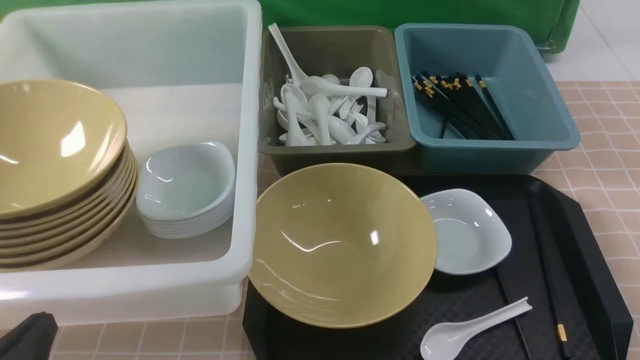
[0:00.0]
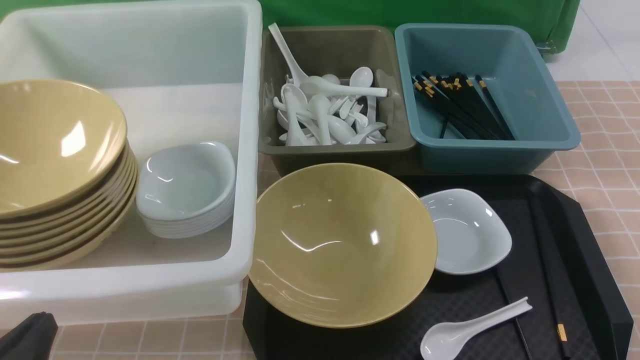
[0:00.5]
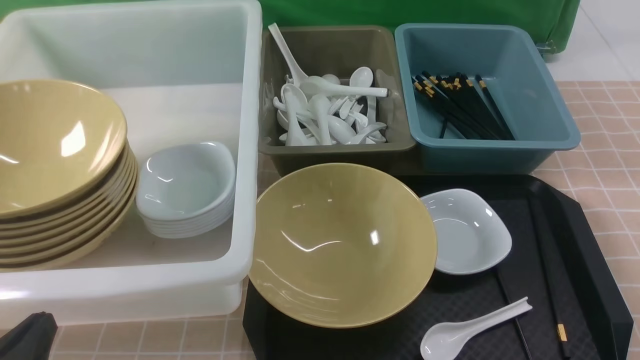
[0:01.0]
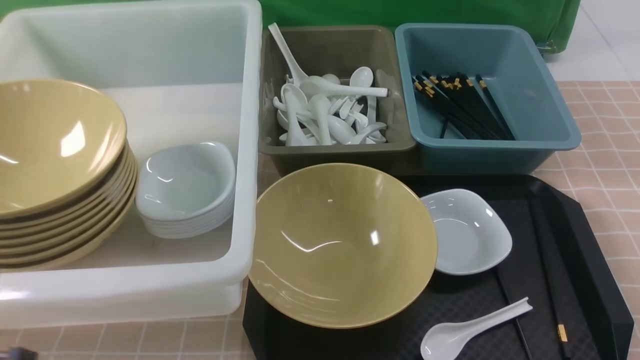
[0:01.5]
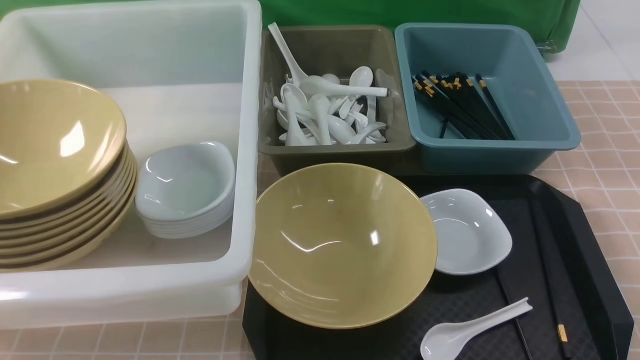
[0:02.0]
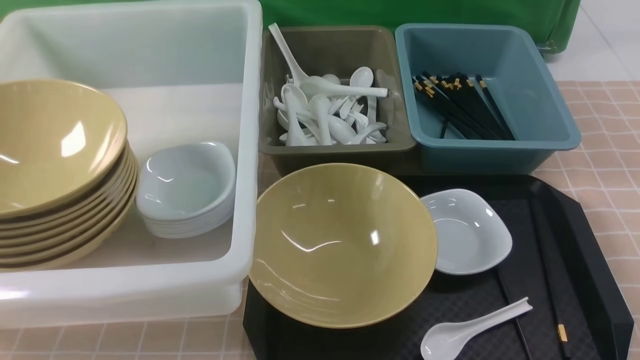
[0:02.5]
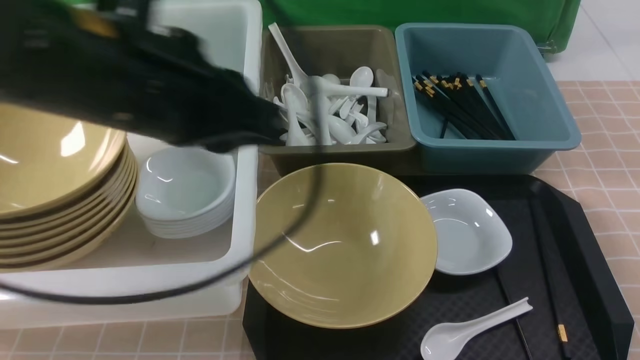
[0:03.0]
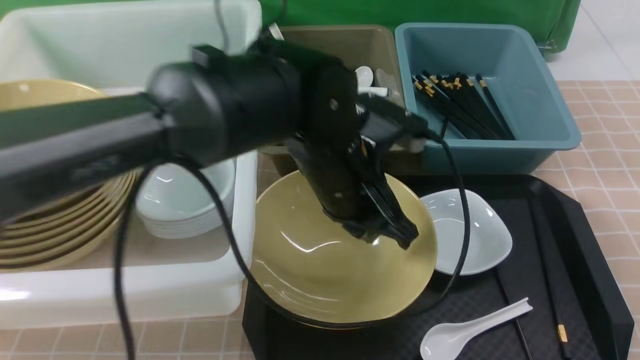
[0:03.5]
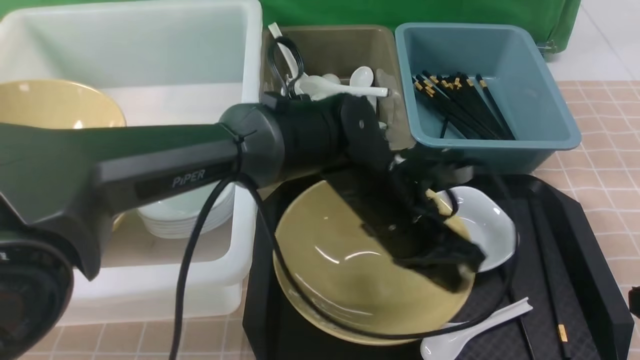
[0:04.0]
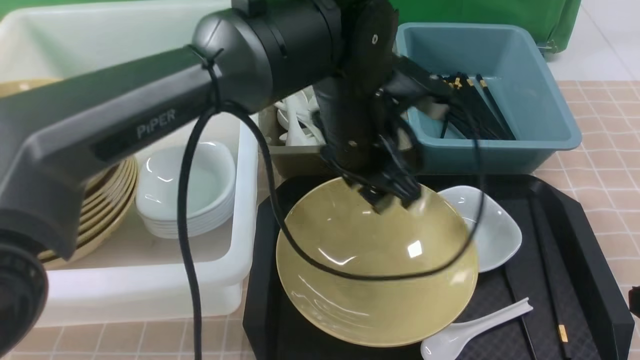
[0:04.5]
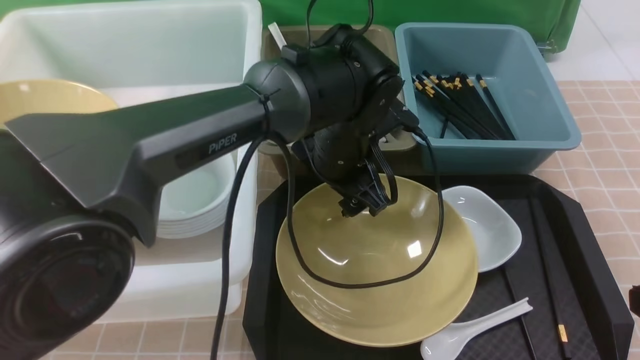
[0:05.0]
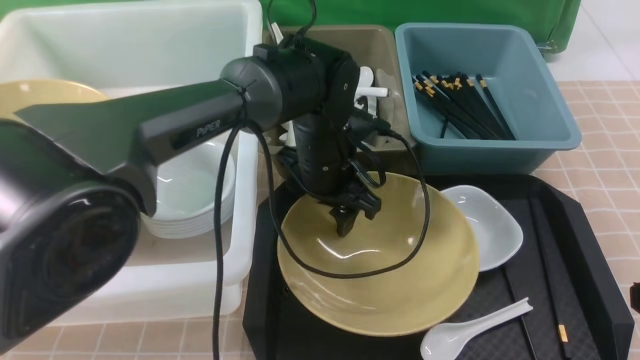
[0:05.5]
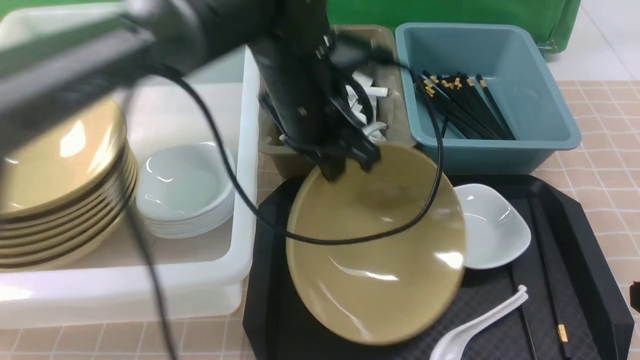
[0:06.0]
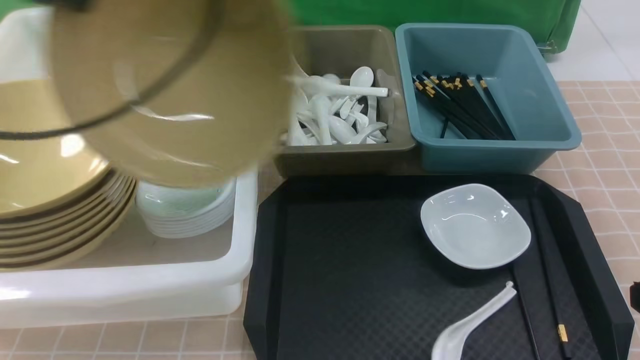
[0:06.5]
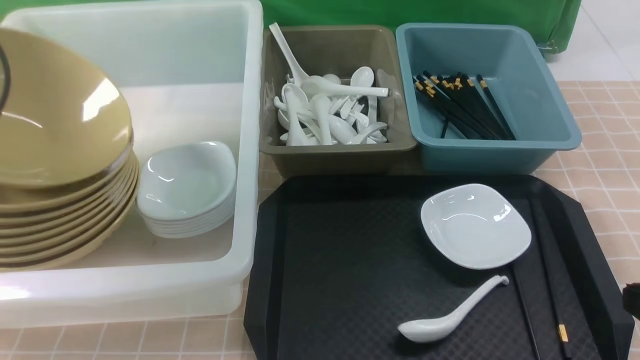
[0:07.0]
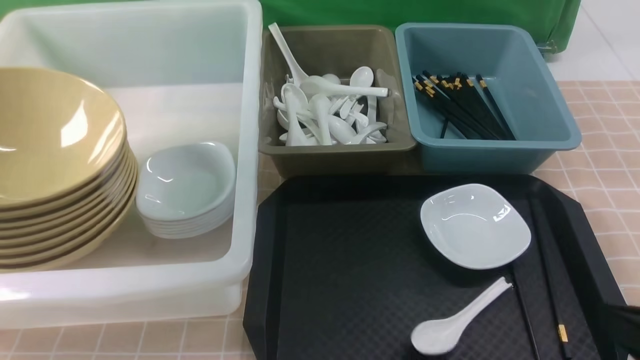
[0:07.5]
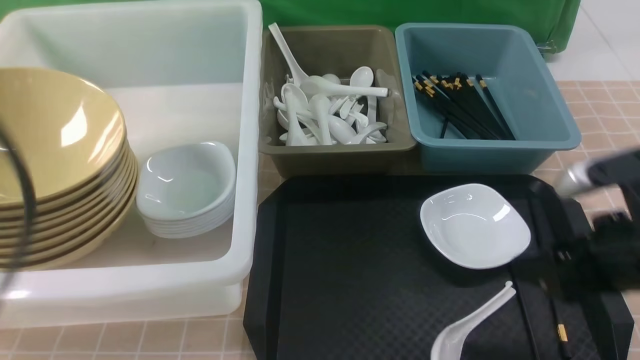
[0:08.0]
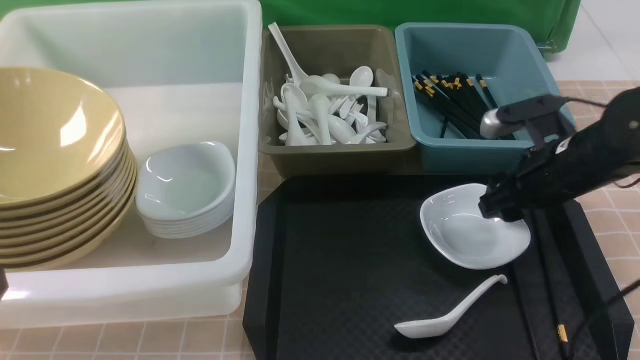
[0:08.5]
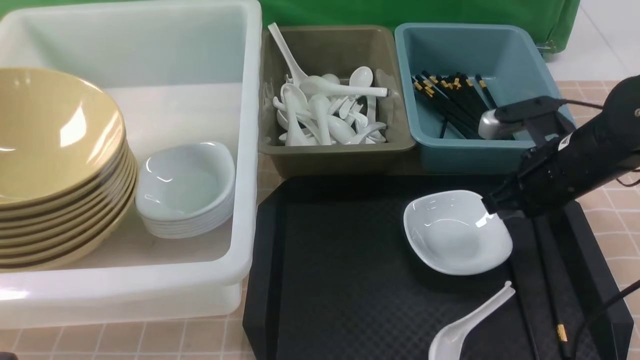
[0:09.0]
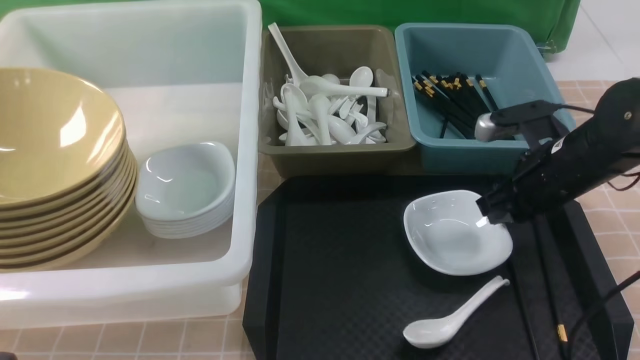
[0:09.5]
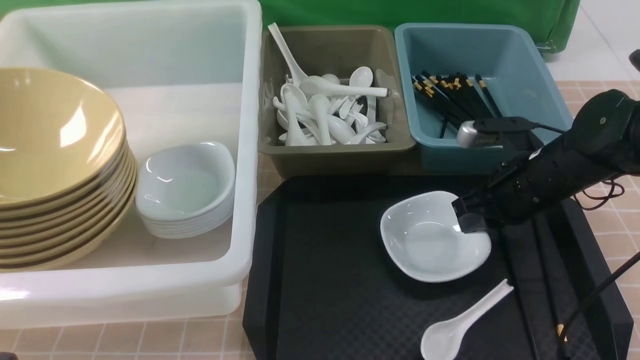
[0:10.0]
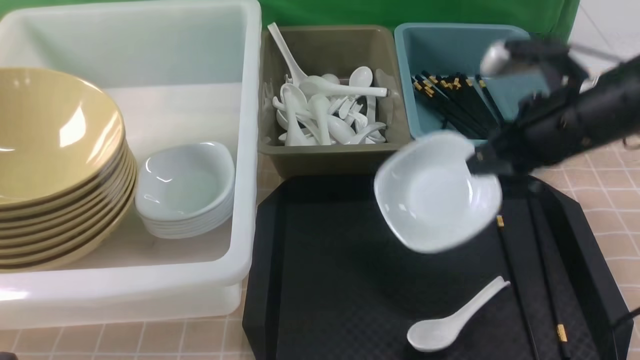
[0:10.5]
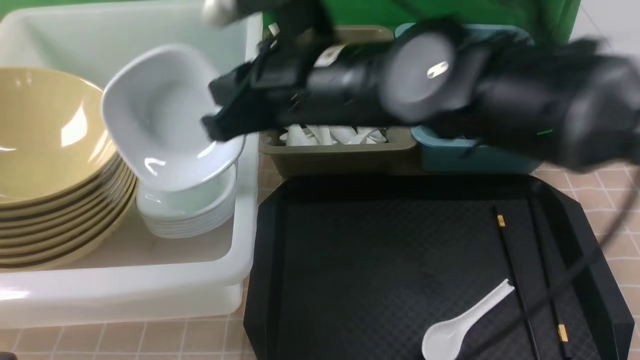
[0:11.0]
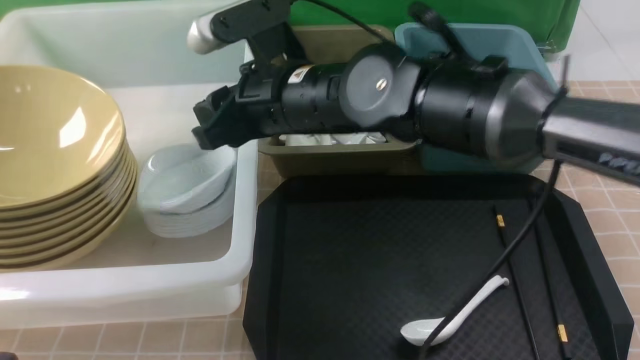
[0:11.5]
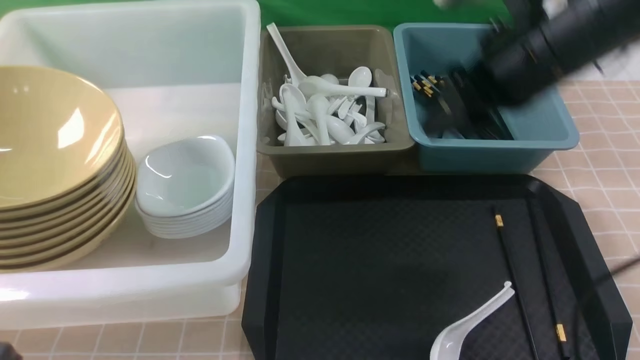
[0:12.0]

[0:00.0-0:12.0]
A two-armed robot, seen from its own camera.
Task of the whole recording: on brown table put chopsticks spoon bowls plates into blue grey white boxes.
Step, 0:00.0 to 0:05.5: use the left arm to grab the yellow noodle bowl on the left.
Step, 0:06.0 to 0:07.0: use the left arm to put the noodle bowl into the large storage box on the left.
Step, 0:08.0 to 0:10.0: use the right arm to grab the plate.
Step, 0:10.5 to 0:11.5: use the right arm to put the plate into the large storage box on the left.
0:00.0 to 0:02.0: The left gripper is displaced upward by approximately 15 cm.
0:02.0 to 0:04.0: The left gripper goes about 40 cm to the right and forward, while the right gripper heads forward, covering roughly 5 cm, and closes up.
0:04.0 to 0:06.0: The left gripper goes up and down, some 15 cm each way, reversing 2 times, and opens, then closes once more.
0:06.0 to 0:08.0: The right gripper is displaced forward by approximately 10 cm, and opens up. The left gripper goes approximately 30 cm backward and to the left, and opens, then closes again.
0:08.0 to 0:10.0: The left gripper is displaced downward and backward by about 15 cm. Meanwhile the right gripper travels forward and downward by about 15 cm, and closes its fingers.
0:10.0 to 0:12.0: The right gripper travels upward by about 15 cm, goes to the left and returns, some 20 cm each way, and opens its fingers.

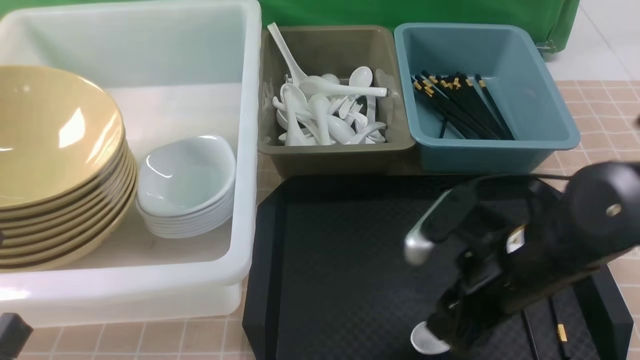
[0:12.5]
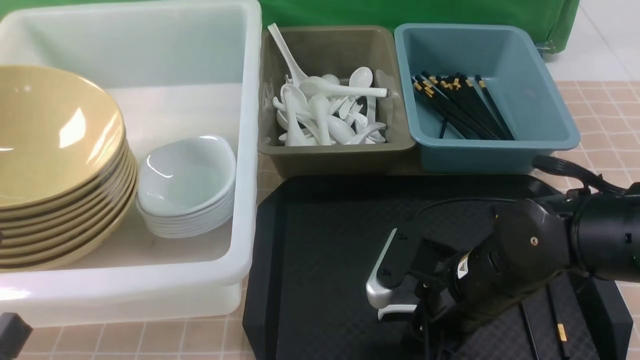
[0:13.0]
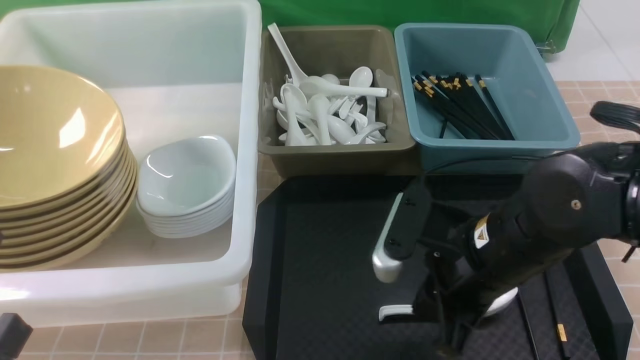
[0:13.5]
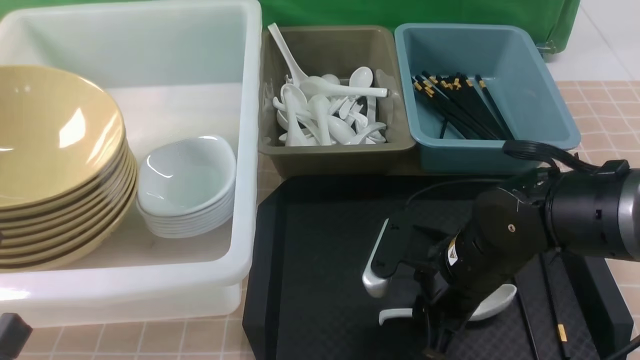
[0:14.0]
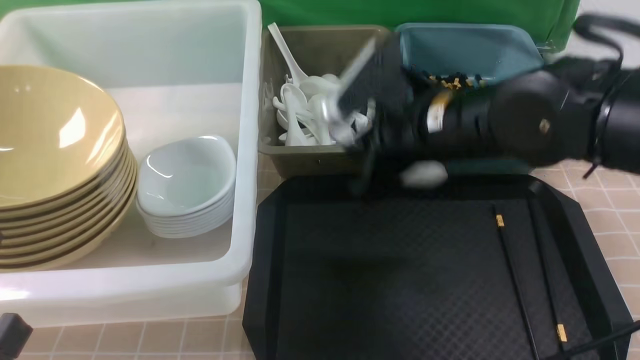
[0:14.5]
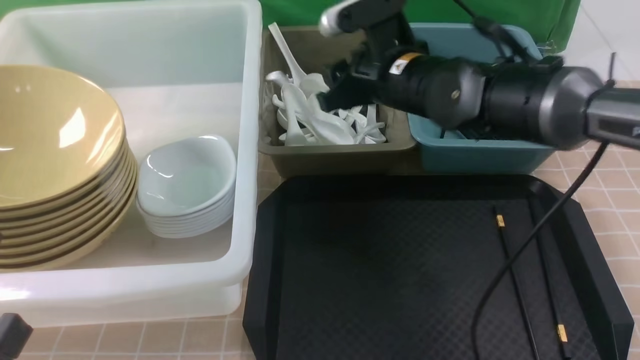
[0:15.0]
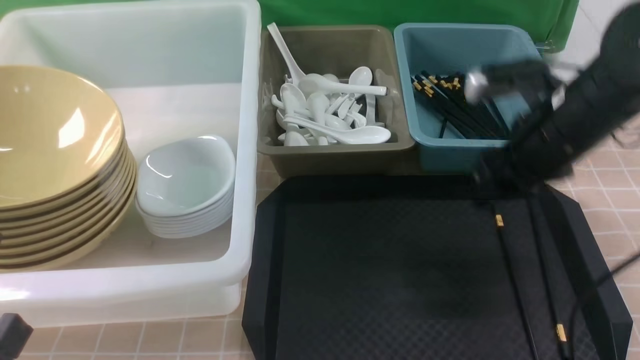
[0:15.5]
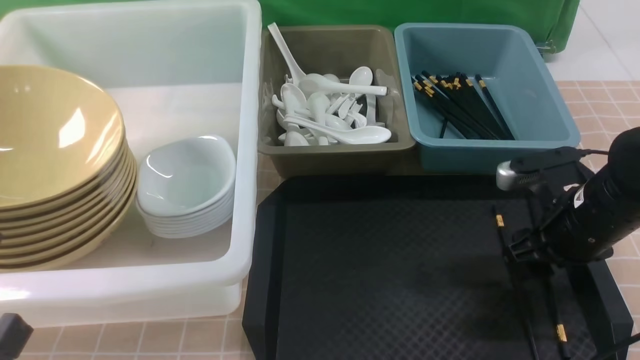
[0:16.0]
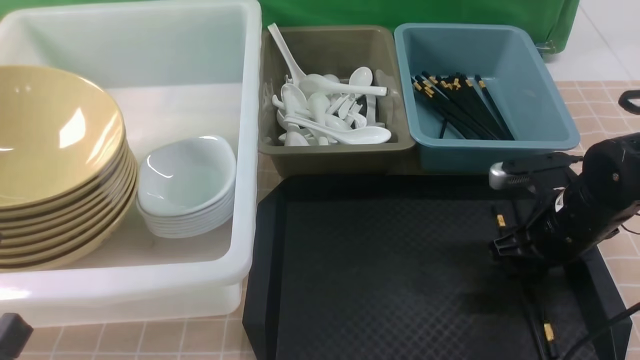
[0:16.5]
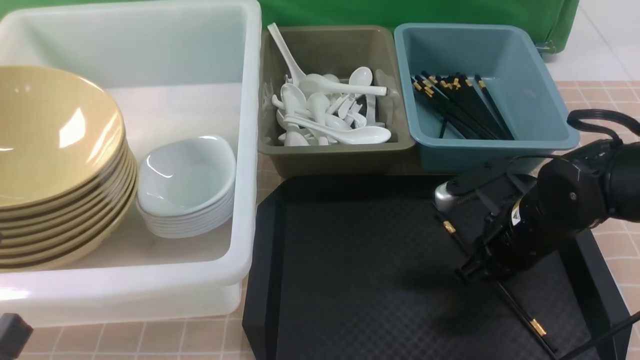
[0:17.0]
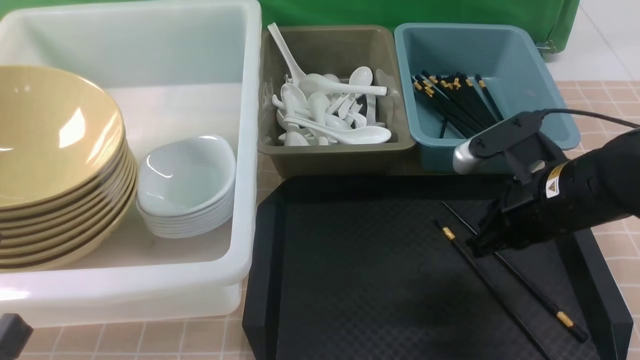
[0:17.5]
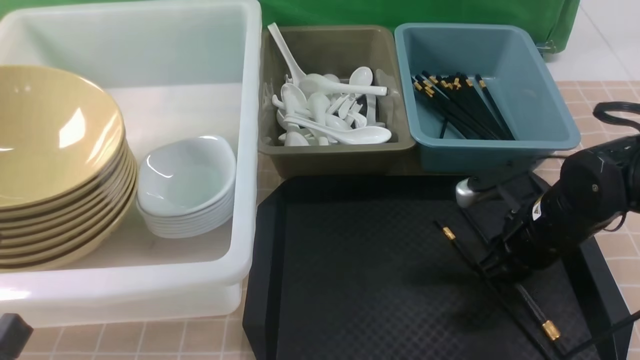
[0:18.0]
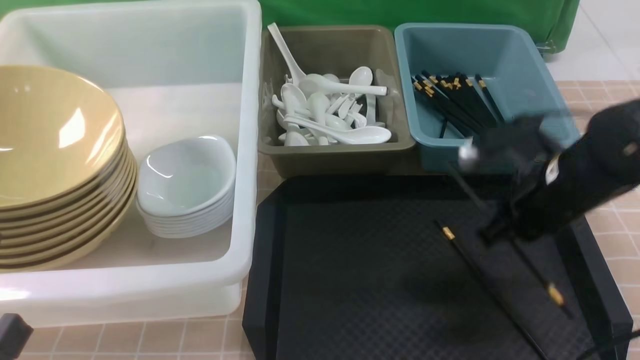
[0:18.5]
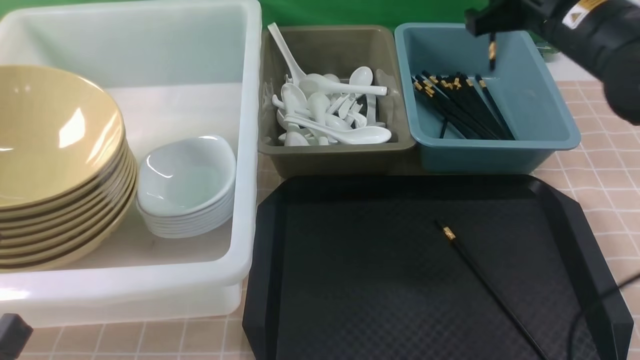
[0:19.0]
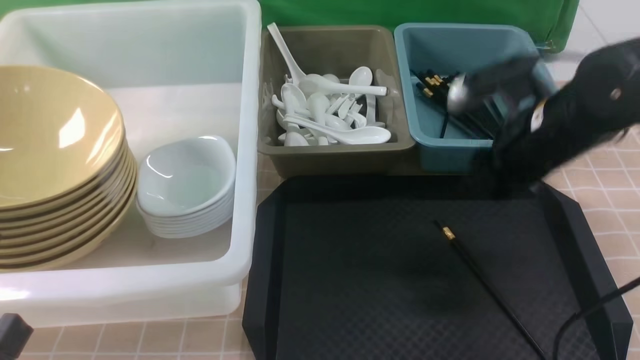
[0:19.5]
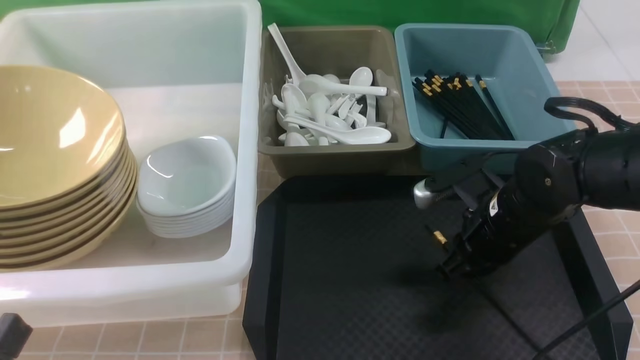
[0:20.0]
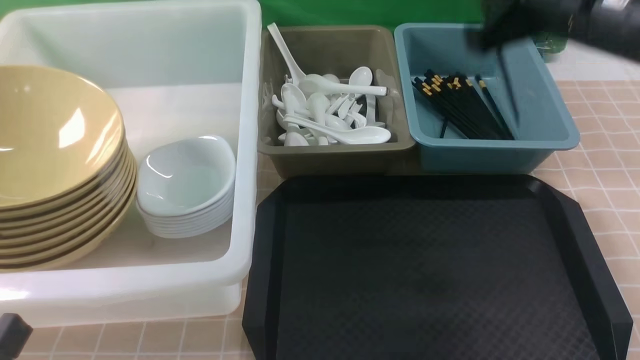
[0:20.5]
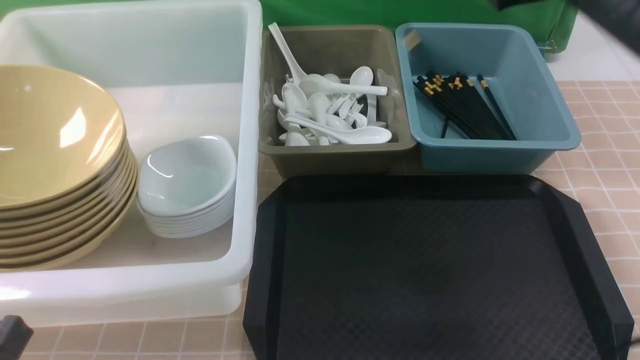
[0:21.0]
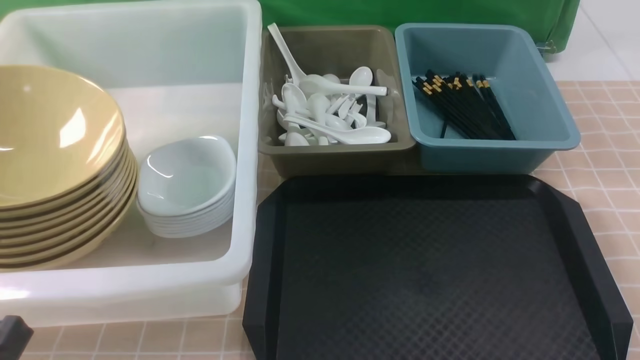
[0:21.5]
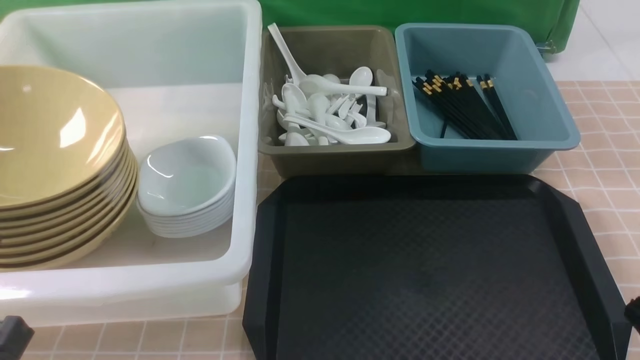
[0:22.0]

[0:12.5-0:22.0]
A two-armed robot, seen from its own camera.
Task of the whole recording: on brown table put chopsticks spoon bowls plates into blue grey white boxes.
Step, 0:12.5 to 0:14.0: use the right arm to grab the soup spoon in the middle.
Step, 0:14.5 to 0:15.0: use the right arm to put the soup spoon into the small storage box in the middle.
Step, 0:15.5 to 0:18.0: use the right arm to grab a chopstick.
Step, 0:18.5 to 0:19.0: use the right arm to put a chopstick into the small storage box on the right.
Step, 0:19.5 to 0:20.0: use the right arm to grab a chopstick.
Step, 0:20.5 to 0:21.0: use the right arm to put a chopstick into the small storage box on the right.
0:12.5 to 0:14.5: The right gripper heads forward, upward and to the left, covering approximately 15 cm, and closes up.
0:14.5 to 0:16.5: The right gripper goes about 20 cm to the right and downward, and opens up.
0:16.5 to 0:18.0: The right gripper closes its fingers.
0:18.0 to 0:20.0: The right gripper reaches roughly 15 cm upward, then returns, and opens and closes again.
0:20.0 to 0:22.0: The right gripper goes approximately 25 cm backward and to the right.
